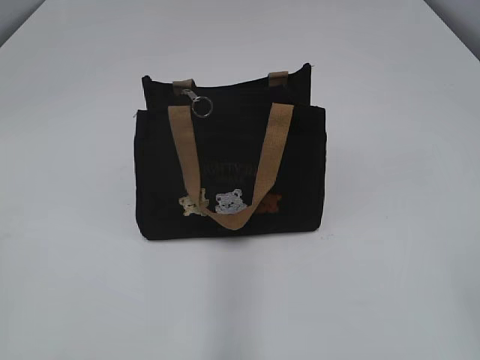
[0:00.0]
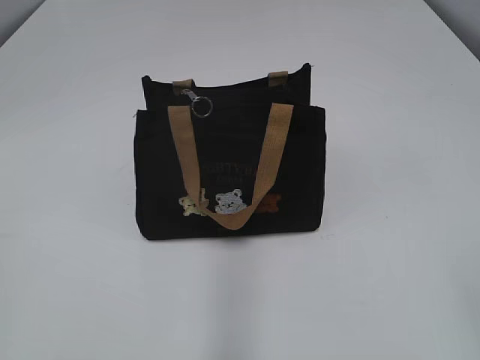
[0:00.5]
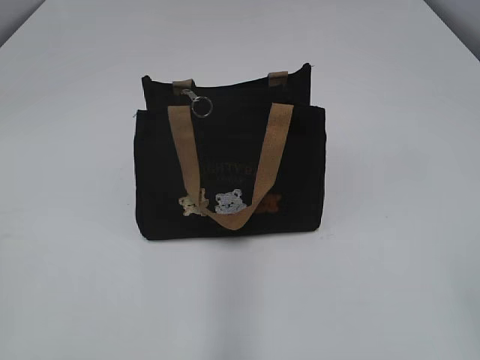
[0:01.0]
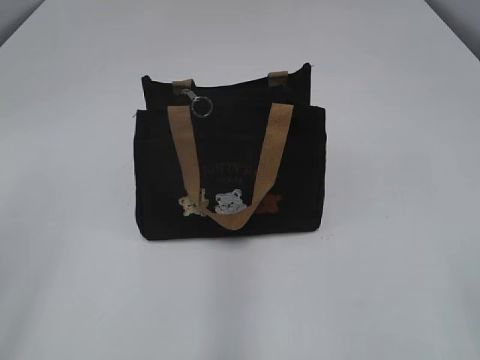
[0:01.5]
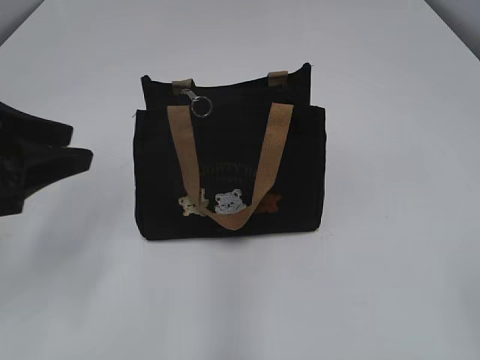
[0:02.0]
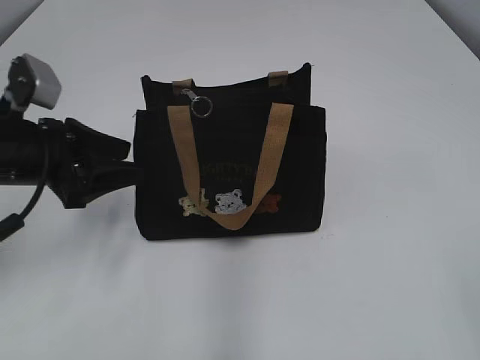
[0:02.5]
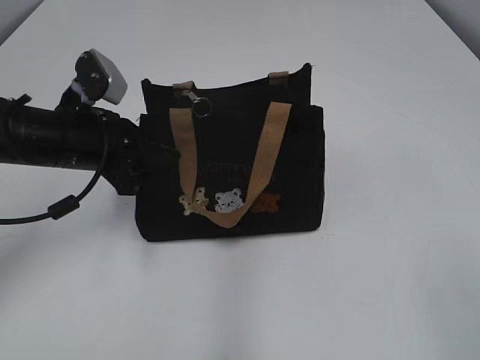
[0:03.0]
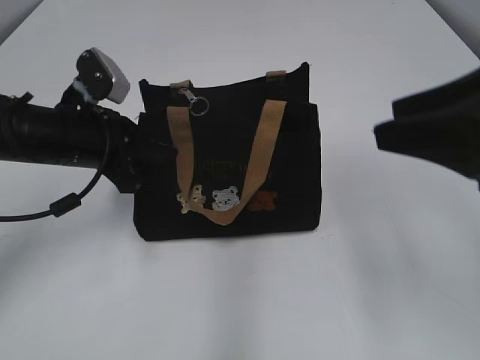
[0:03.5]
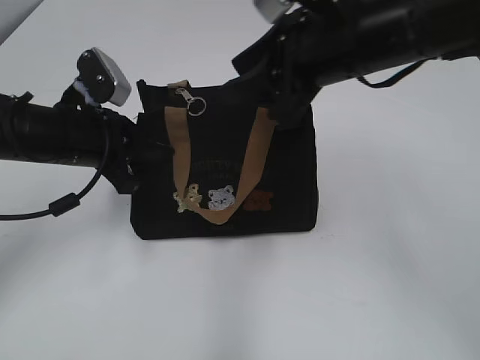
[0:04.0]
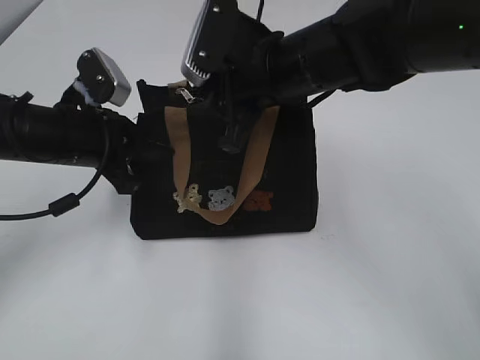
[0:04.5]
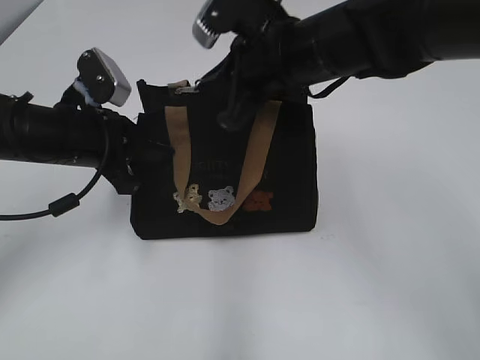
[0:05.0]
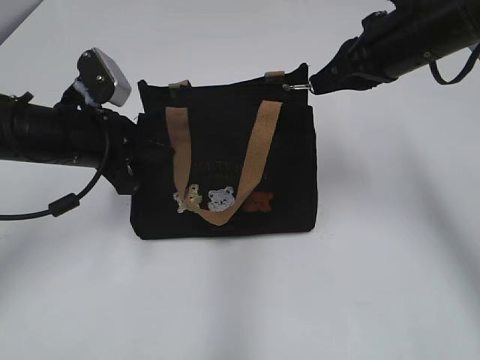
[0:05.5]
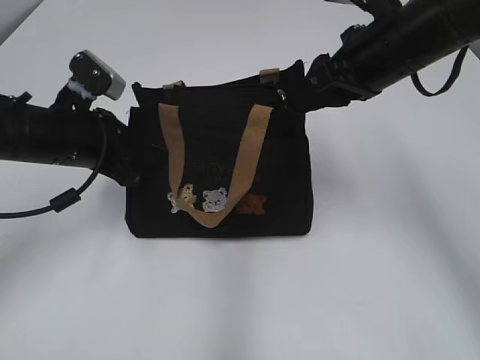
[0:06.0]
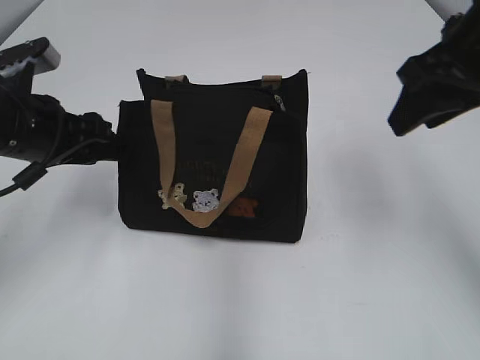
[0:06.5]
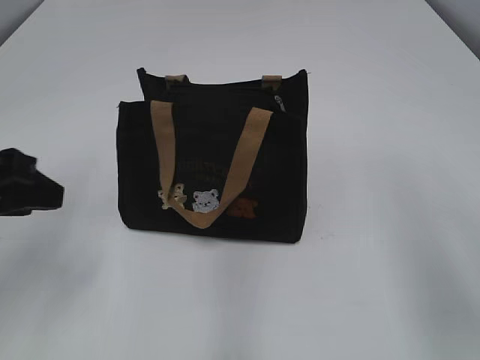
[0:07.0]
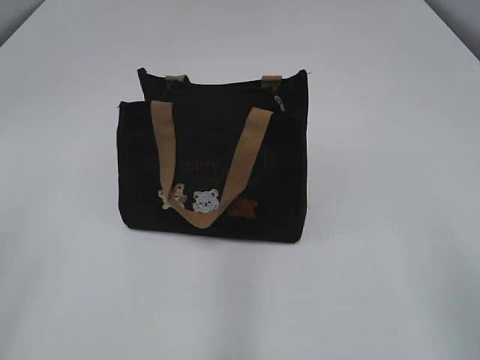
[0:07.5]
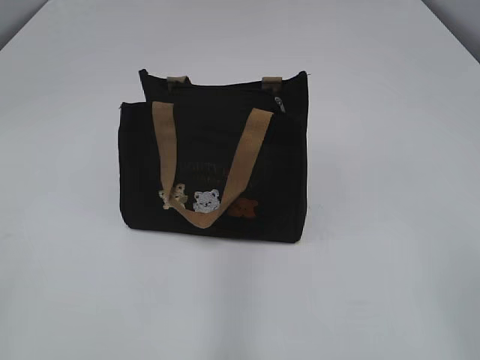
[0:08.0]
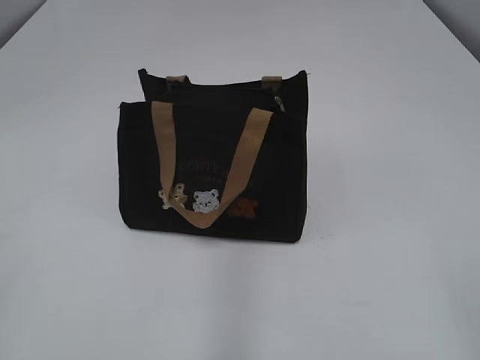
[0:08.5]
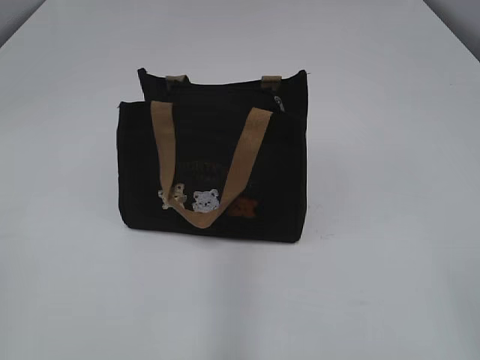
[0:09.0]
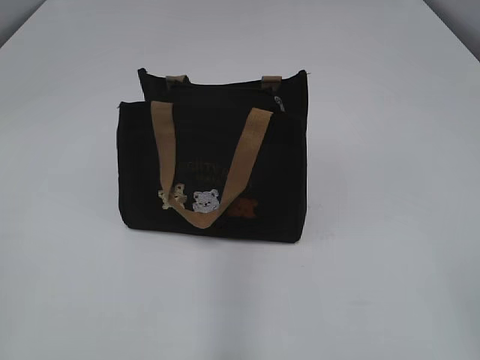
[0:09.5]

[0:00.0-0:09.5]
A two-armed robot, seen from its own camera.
Step, 0:00.0 to 0:06.0: Pull open the zipper with your right hand.
0:02.0 to 0:04.0: The right gripper moves forward and to the left, approximately 35 cm; the left gripper goes some 15 cm forward, downward and to the right, and closes.
0:04.0 to 0:05.5: The right gripper goes approximately 10 cm to the right and forward, and closes its fingers.
0:05.5 to 0:07.5: The right gripper is displaced backward by about 30 cm, and opens its fingers. The left gripper moves backward, upward and to the left, approximately 30 cm, and opens its fingers.
